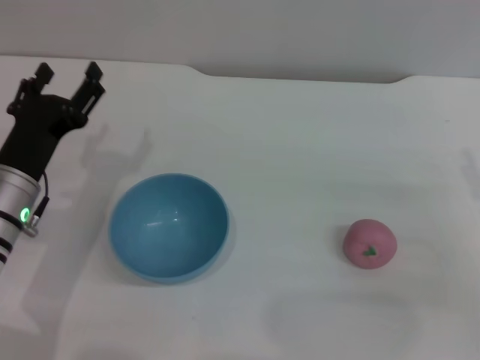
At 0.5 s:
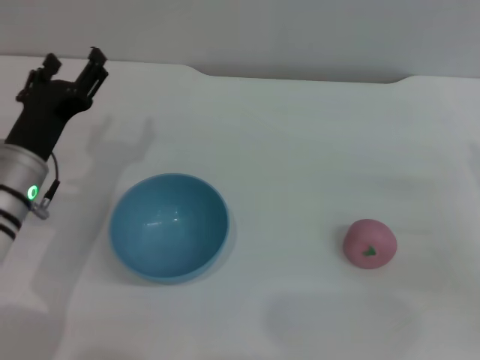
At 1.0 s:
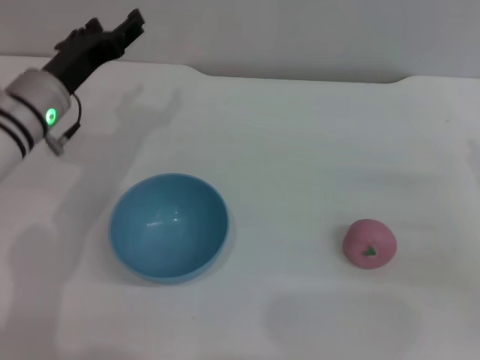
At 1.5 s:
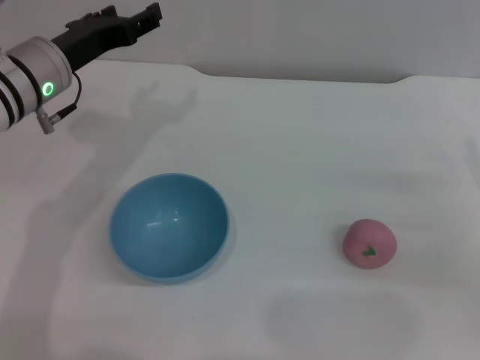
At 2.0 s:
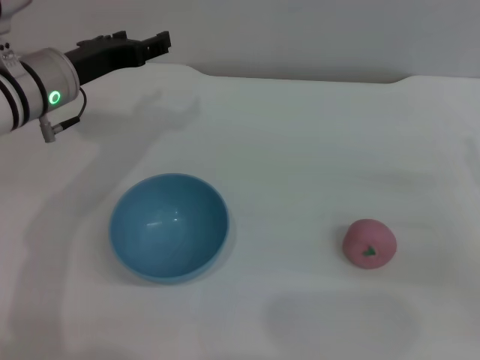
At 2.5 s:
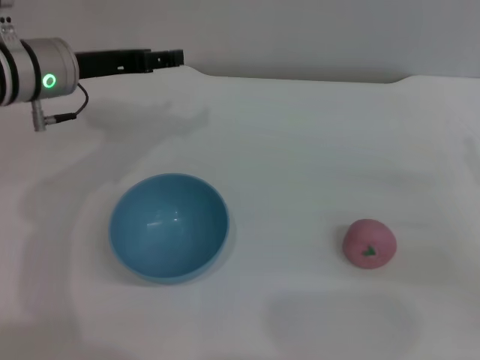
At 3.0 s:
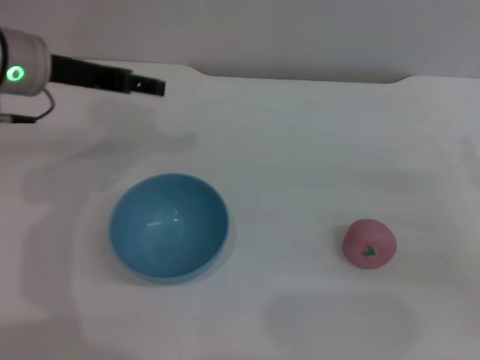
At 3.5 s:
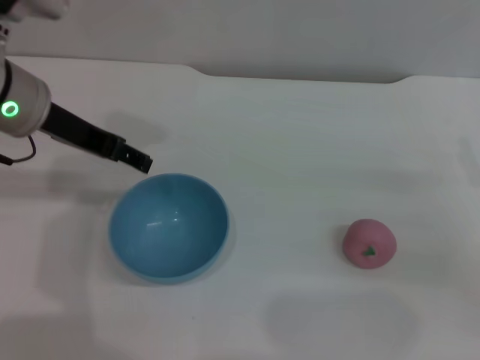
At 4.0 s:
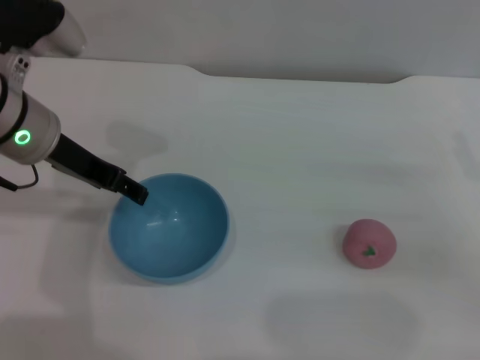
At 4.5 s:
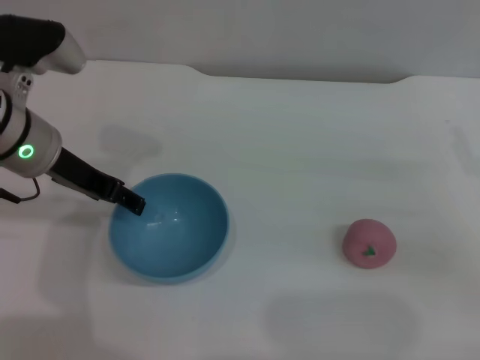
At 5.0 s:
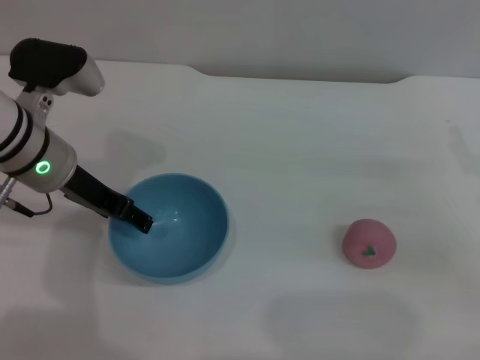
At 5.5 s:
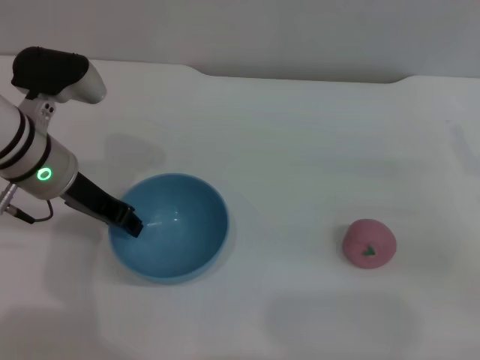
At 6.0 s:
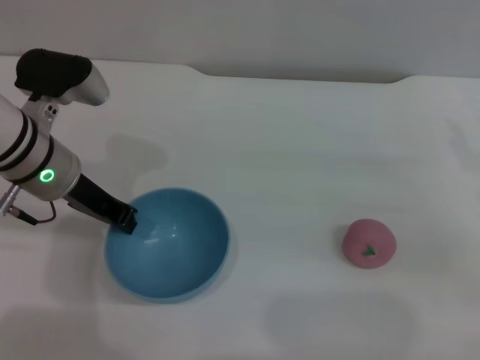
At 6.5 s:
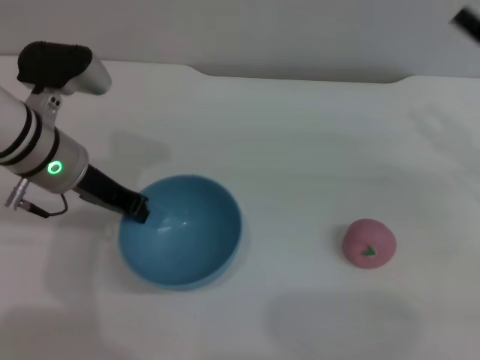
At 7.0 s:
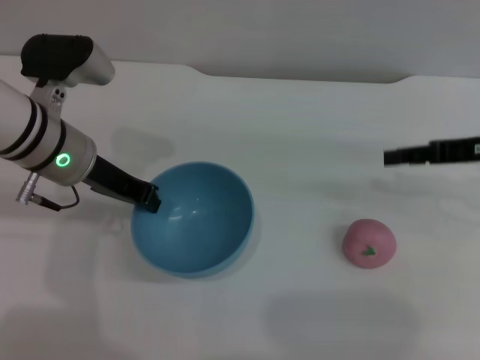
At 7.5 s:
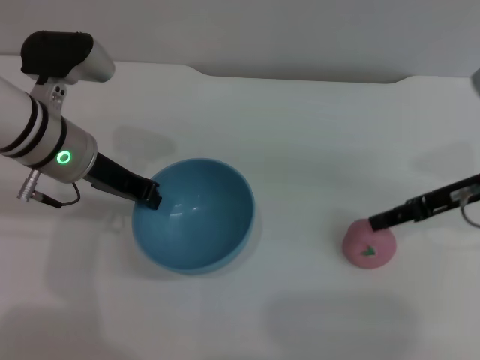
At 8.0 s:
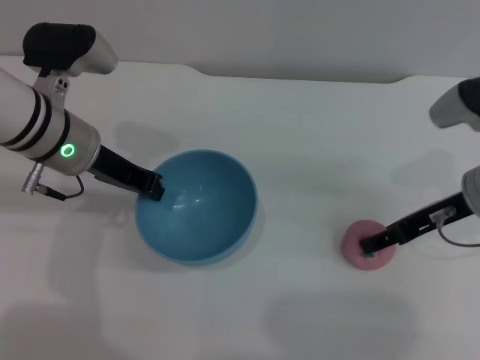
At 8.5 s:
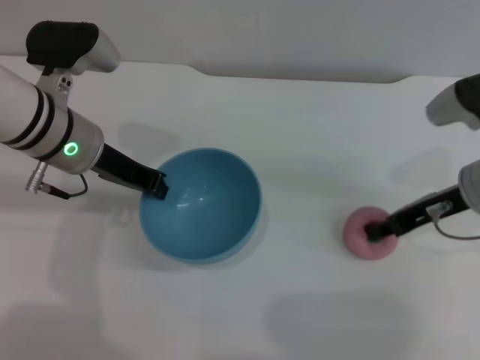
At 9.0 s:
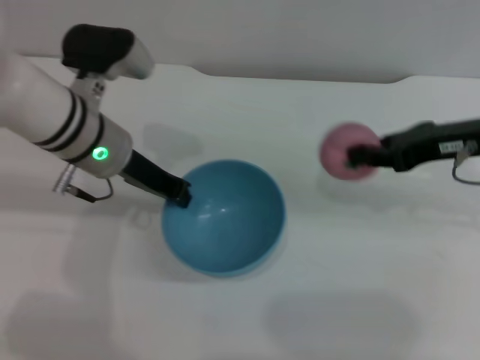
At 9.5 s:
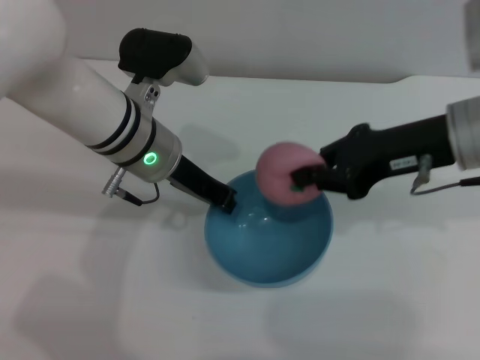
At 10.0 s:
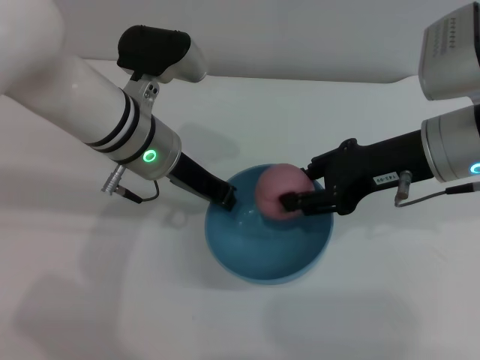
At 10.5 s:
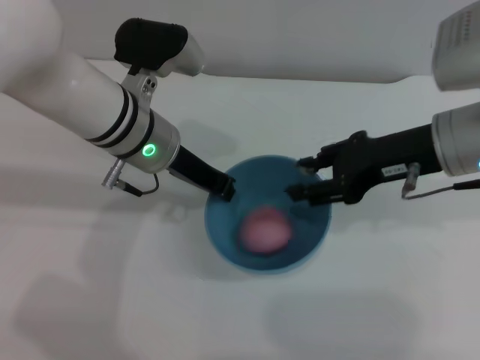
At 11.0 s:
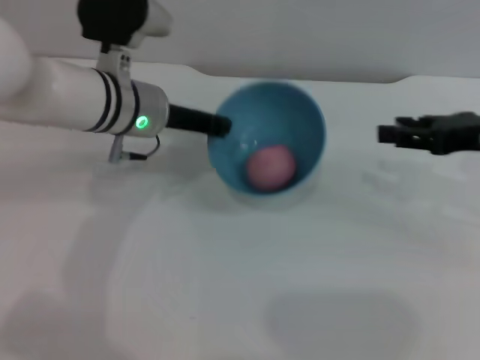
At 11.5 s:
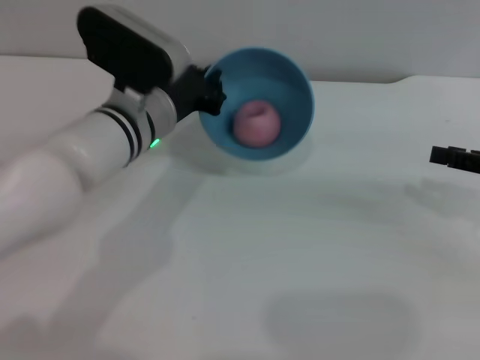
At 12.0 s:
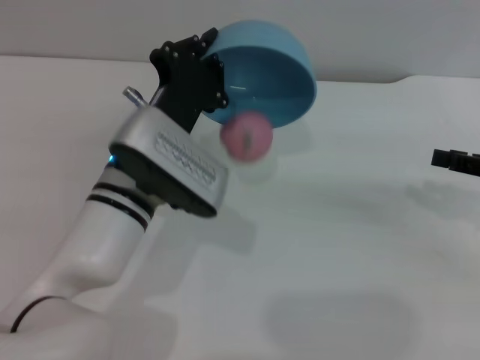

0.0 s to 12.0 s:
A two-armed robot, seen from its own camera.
Task of the whole recording: put the peach into the blue bowl and pour it out repeatedly.
Step, 0.0 to 7.0 s: Pick up the bowl with the left gripper.
Step, 7.5 to 8.5 s: Pick up the peach with the right gripper.
Step, 9.0 to 10.5 s: Place the peach into the bowl.
0.0 to 2.0 s: The left gripper goes about 15 cm forward and upward.
2.0 to 4.0 s: The left gripper changes place by approximately 5 cm.
4.0 to 6.0 s: The left gripper travels downward by some 5 cm, and closes up.
6.0 to 8.0 s: The right gripper shifts some 10 cm to the left and forward.
8.0 to 10.0 s: The left gripper moves to the right, some 10 cm; the right gripper travels upward and to the left by about 10 cm, and closes its fingers.
10.0 to 12.0 s: The left gripper heads backward, covering some 5 cm; the right gripper moves to the right, about 15 cm, and opens up.

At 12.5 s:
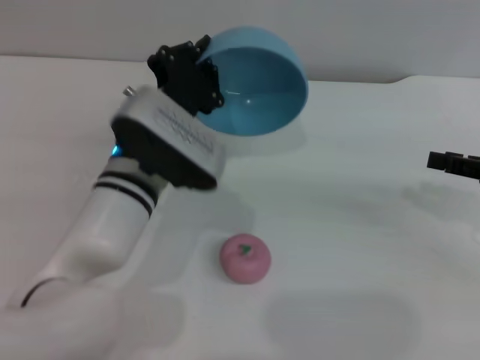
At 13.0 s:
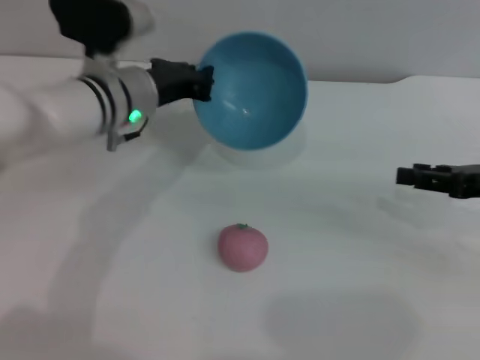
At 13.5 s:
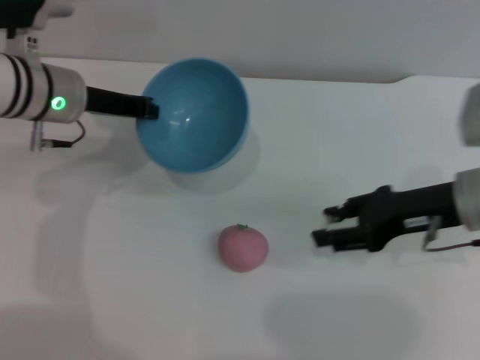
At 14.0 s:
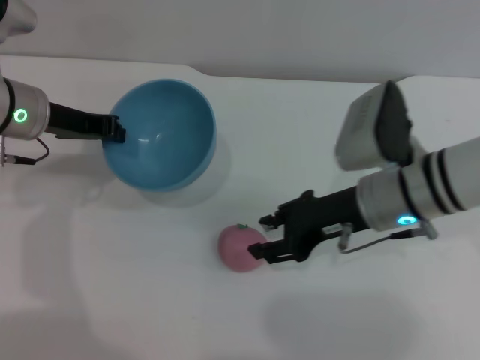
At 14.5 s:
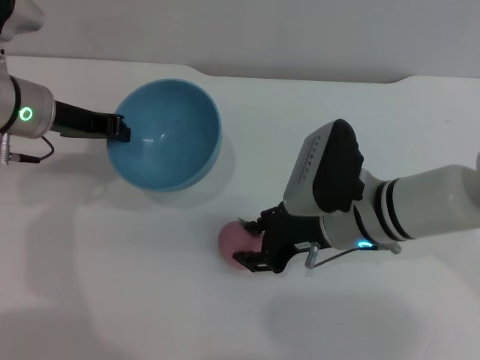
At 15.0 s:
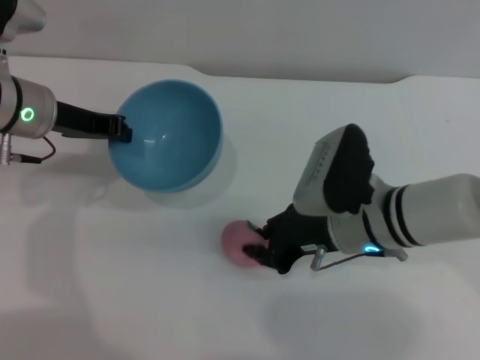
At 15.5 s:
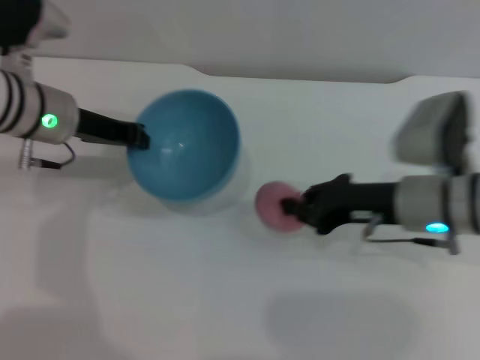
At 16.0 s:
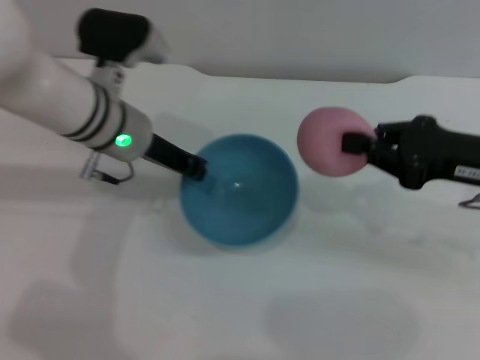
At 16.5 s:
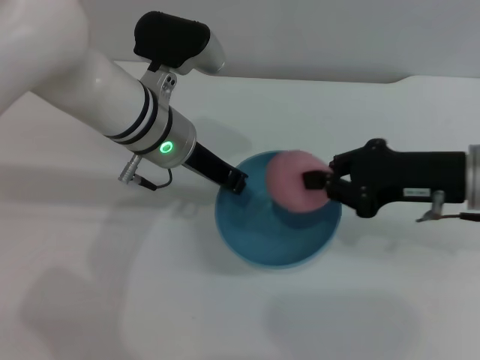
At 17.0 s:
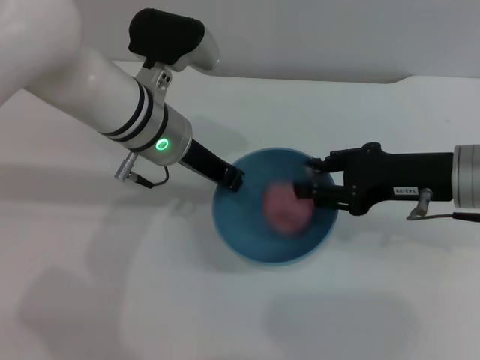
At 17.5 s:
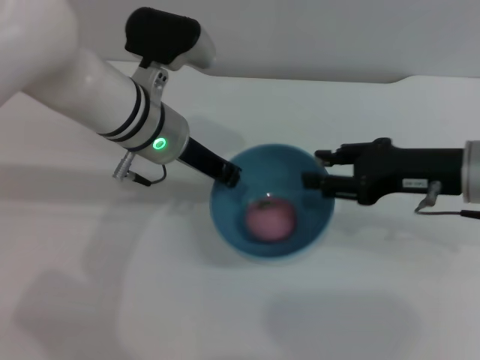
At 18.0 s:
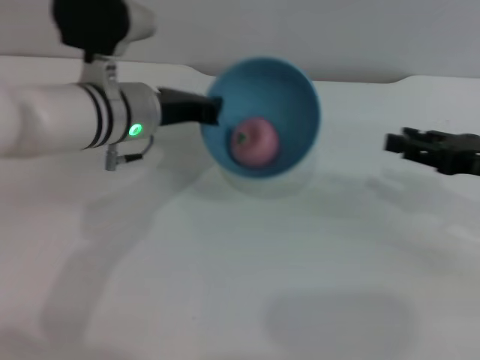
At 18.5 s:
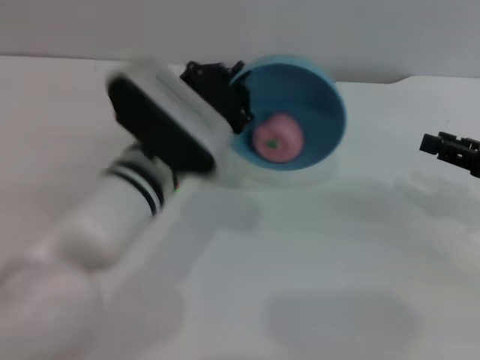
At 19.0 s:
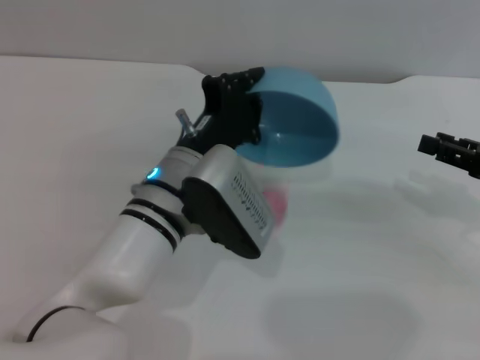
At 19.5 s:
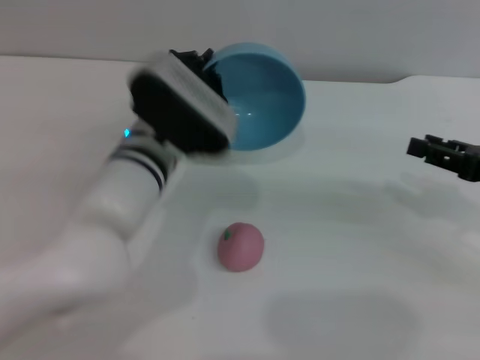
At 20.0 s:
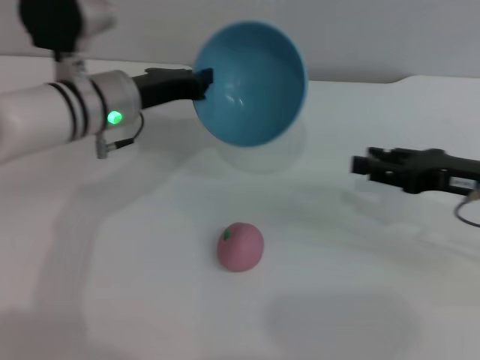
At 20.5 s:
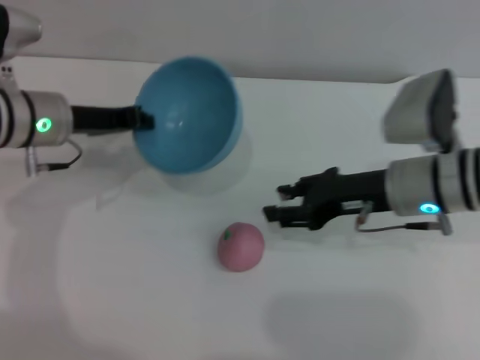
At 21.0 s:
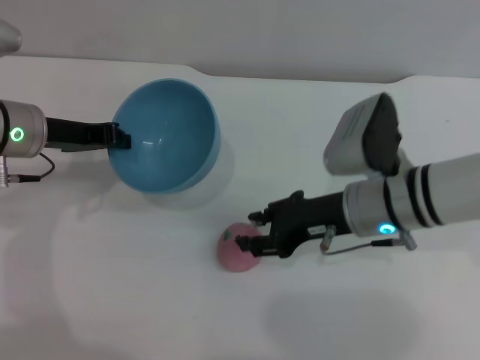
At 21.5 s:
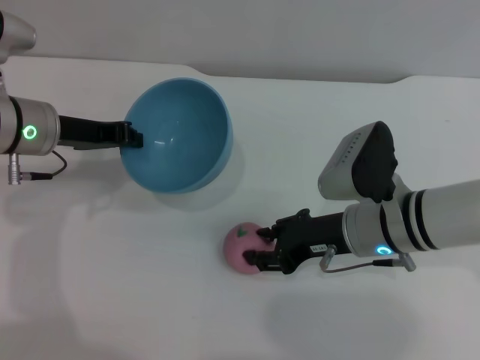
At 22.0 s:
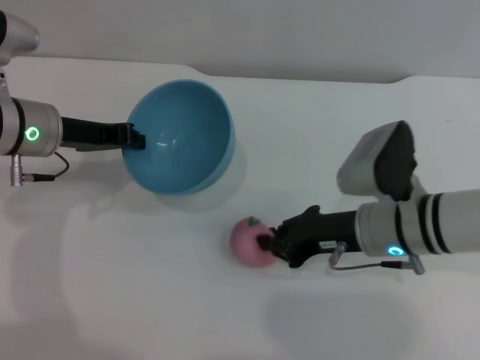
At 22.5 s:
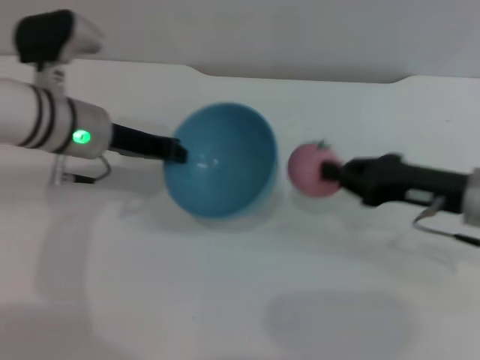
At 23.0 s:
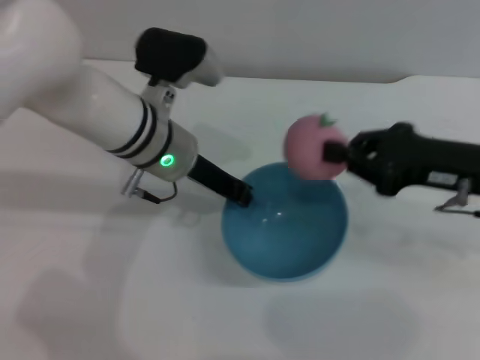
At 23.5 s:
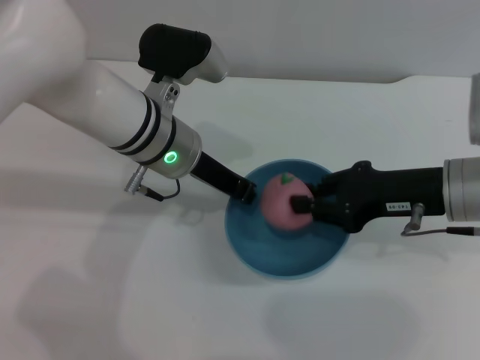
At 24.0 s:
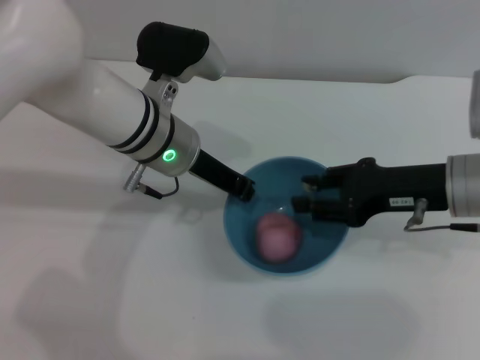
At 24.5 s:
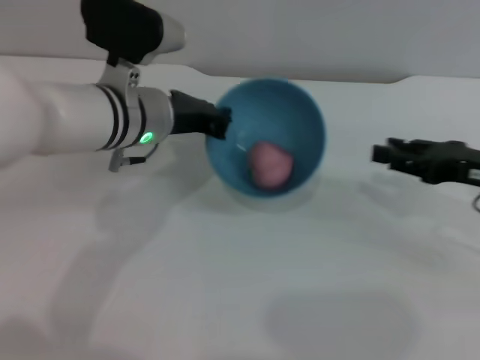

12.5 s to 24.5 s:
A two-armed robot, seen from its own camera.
Task of the whole recording: put the peach into the blue bowl and pour it out repeatedly.
Step, 12.5 to 15.5 s: Pick up the peach with the right gripper.
Step, 16.0 to 17.5 s: Place the peach into the bowl.
Step, 18.0 to 19.0 s: Pour the peach out of bowl.
Step, 19.5 to 22.0 s: Pick up the peach with the right gripper.
Step, 22.5 to 24.0 s: Place the peach into the bowl.
12.5 to 14.5 s: The right gripper heads to the left, covering roughly 25 cm. The left gripper goes about 15 cm to the left and forward.
14.5 to 16.5 s: The left gripper moves to the right, about 15 cm; the right gripper is displaced to the right and upward by approximately 15 cm, and closes.
16.5 to 18.5 s: The left gripper travels backward by about 5 cm. Meanwhile the right gripper is displaced to the right by roughly 10 cm, and opens.
18.5 to 20.5 s: The left gripper moves to the left and forward, about 15 cm, while the right gripper is displaced to the left by roughly 15 cm.
20.5 to 22.5 s: The right gripper shifts roughly 5 cm to the right, and closes its fingers.
22.5 to 24.5 s: The two grippers go some 5 cm to the right. The right gripper opens up.

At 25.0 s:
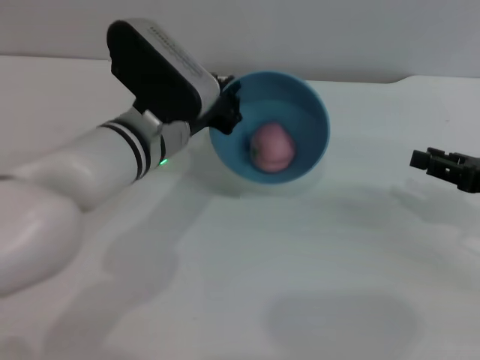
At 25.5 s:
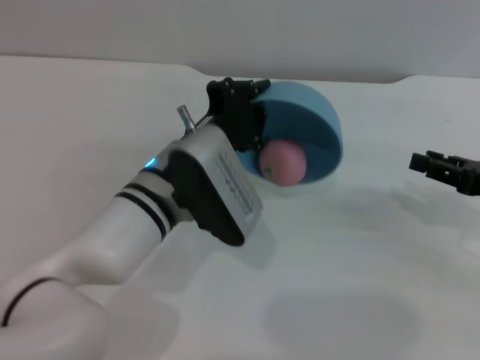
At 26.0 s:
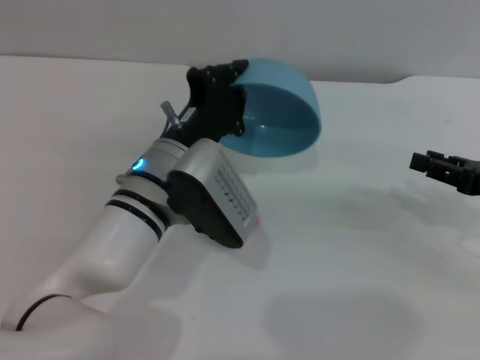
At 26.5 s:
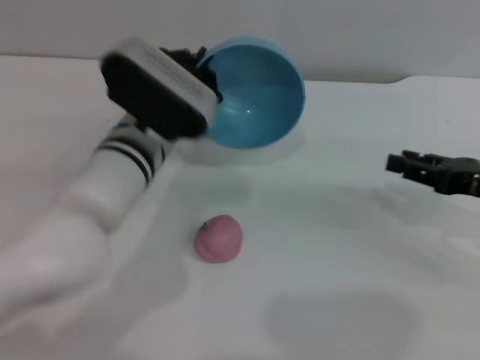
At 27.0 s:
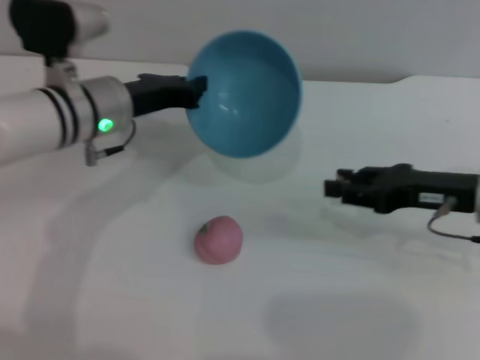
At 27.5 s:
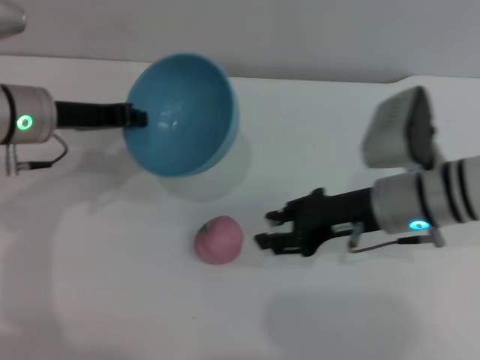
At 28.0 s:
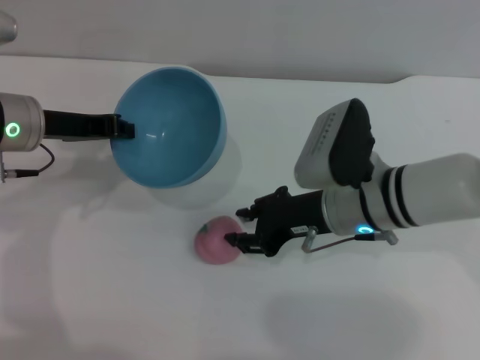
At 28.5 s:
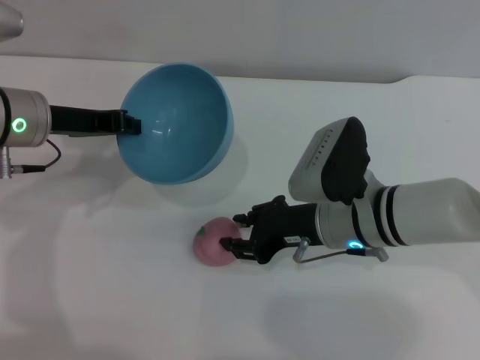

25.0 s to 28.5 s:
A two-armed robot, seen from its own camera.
Task of the whole recording: put the peach into the blue bowl and pour it out repeatedly.
Step, 25.0 to 26.0 s: Pour the peach out of bowl.
25.0 to 27.0 s: Both grippers move to the left, approximately 5 cm.
27.0 to 28.5 s: The right gripper moves to the left, some 15 cm, while the left gripper shifts about 5 cm to the left.
